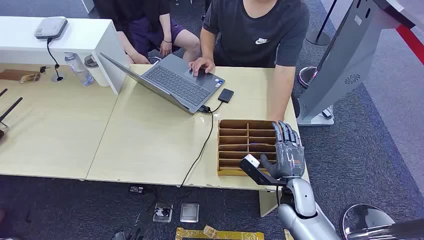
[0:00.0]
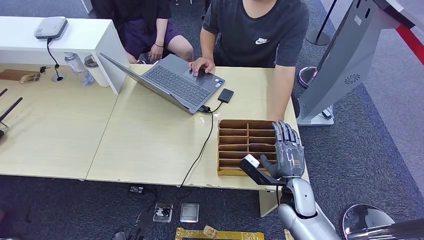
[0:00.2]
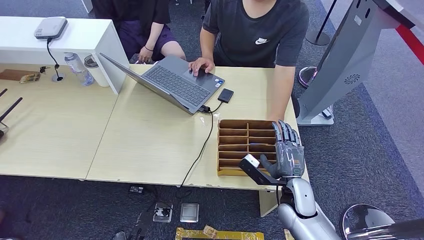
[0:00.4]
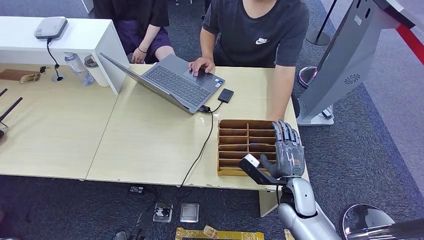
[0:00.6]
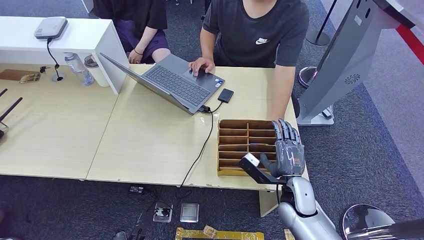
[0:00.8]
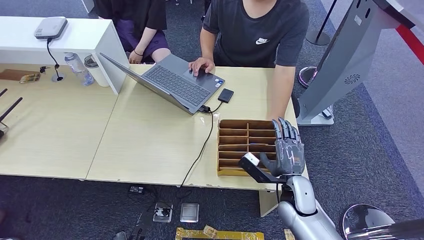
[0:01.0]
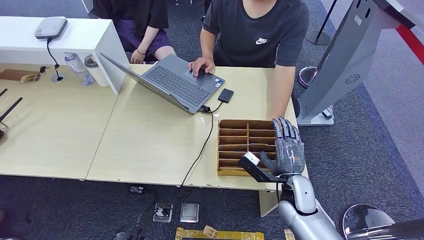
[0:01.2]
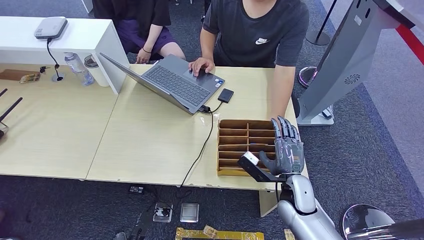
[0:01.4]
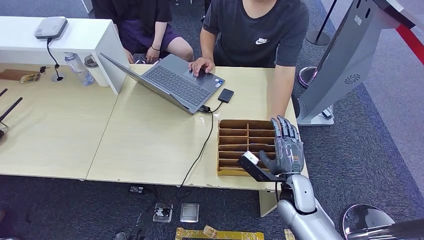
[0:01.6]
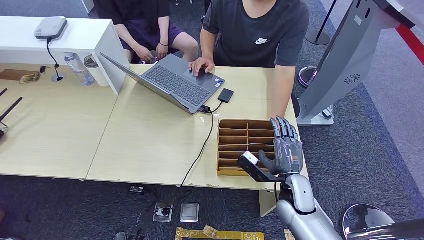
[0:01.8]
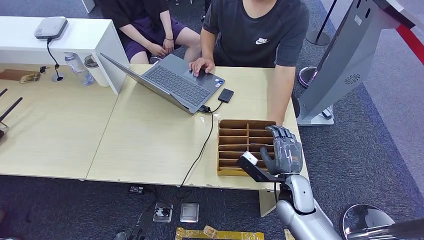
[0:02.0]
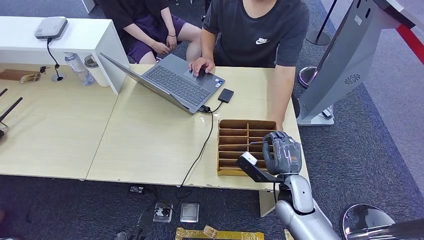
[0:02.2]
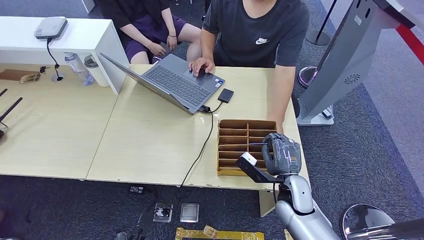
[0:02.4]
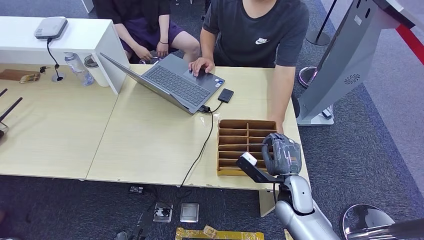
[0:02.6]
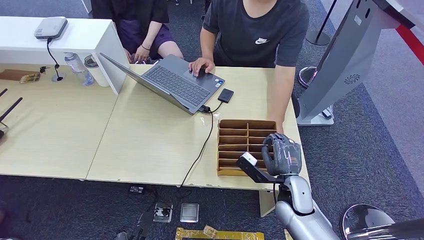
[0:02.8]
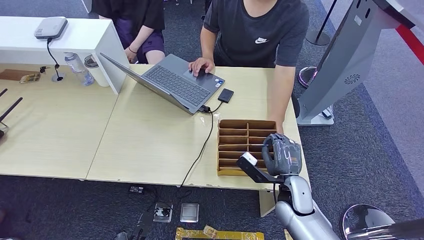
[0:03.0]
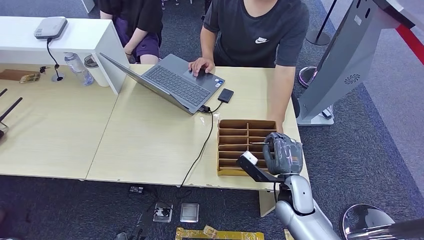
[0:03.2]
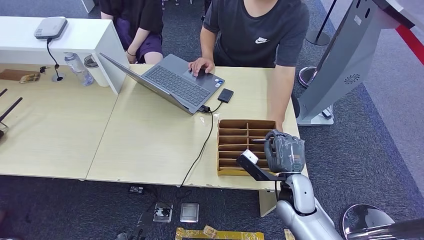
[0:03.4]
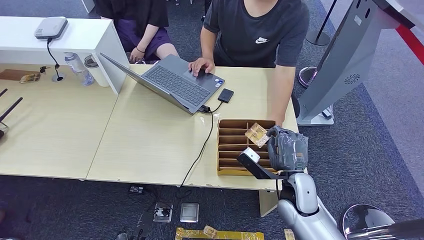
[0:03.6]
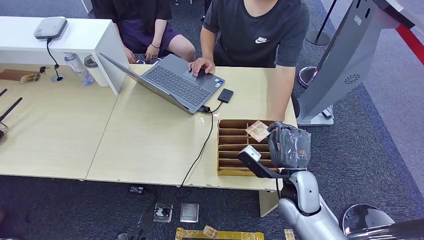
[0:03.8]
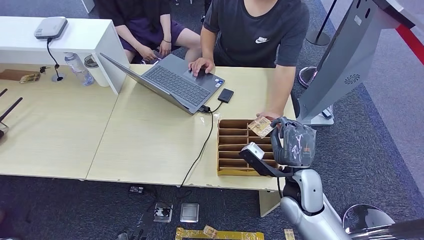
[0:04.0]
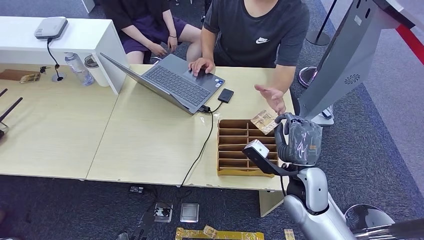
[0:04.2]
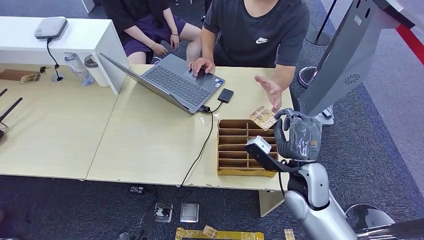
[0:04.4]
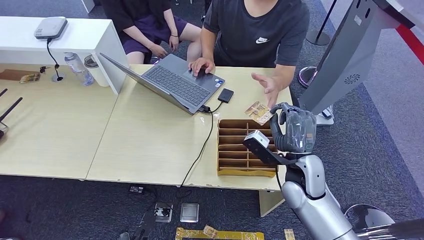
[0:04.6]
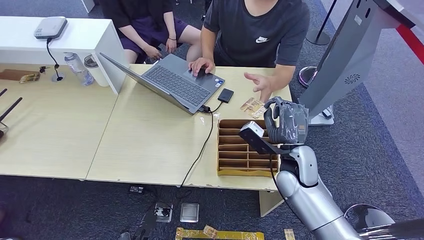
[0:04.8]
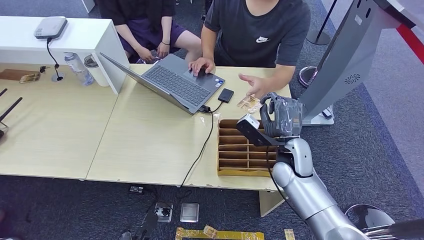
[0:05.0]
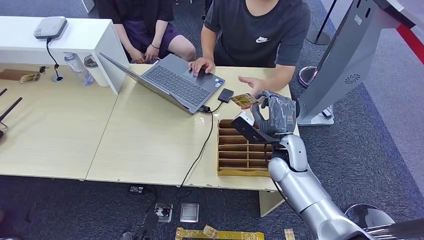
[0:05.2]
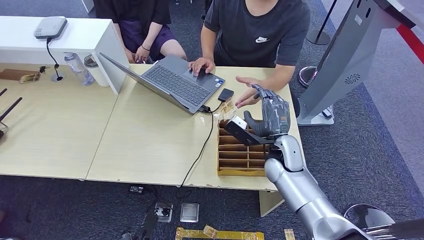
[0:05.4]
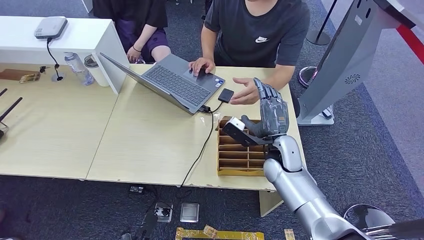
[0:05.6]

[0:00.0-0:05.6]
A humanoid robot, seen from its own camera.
Step, 0:00.0 to 0:03.4: Pick up the key card from the card box.
Step, 0:03.6 to 0:05.6: Hand the key card to the target.
0:01.4 to 0:02.8: The two hands keep their place.
0:02.8 to 0:04.2: The right hand shifts roughly 10 cm upward.
0:04.2 to 0:05.6: The right hand moves forward, about 10 cm.
